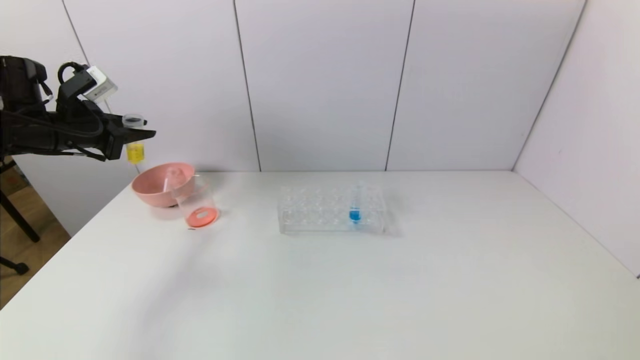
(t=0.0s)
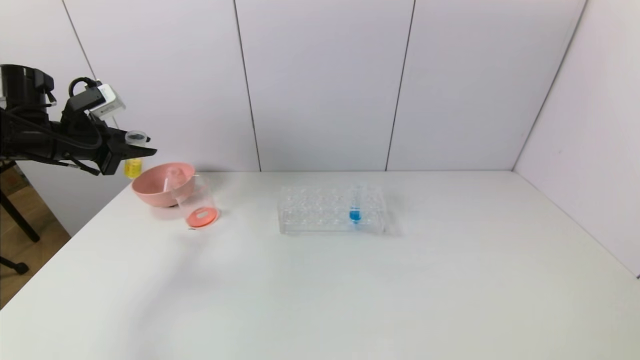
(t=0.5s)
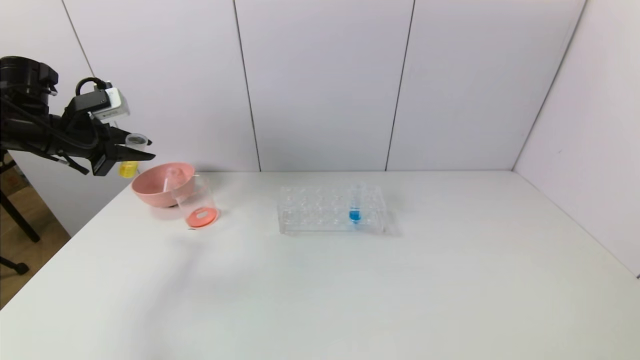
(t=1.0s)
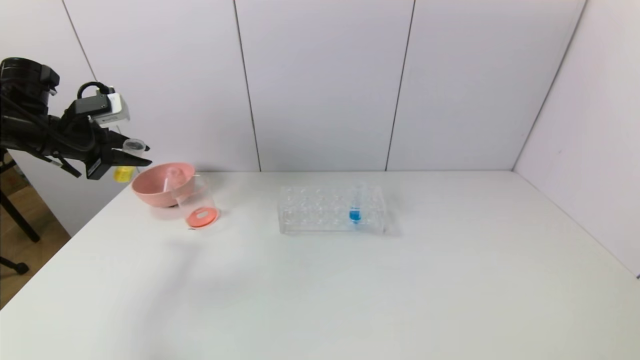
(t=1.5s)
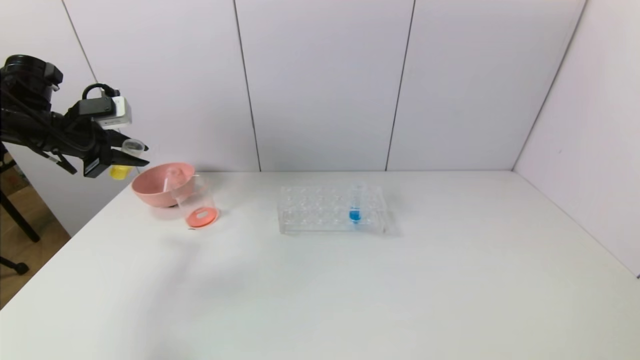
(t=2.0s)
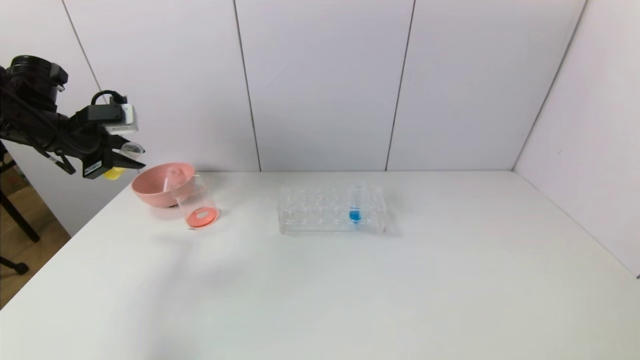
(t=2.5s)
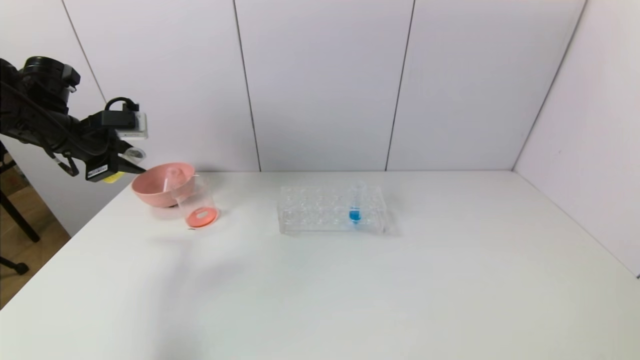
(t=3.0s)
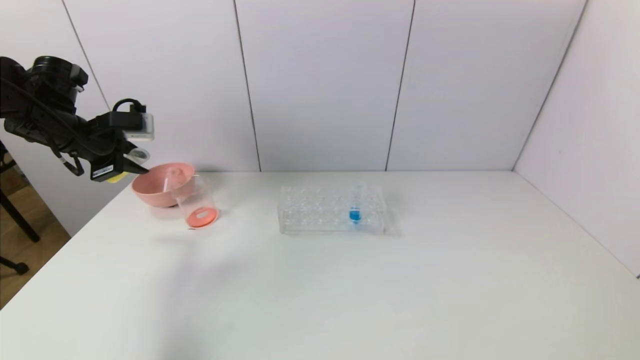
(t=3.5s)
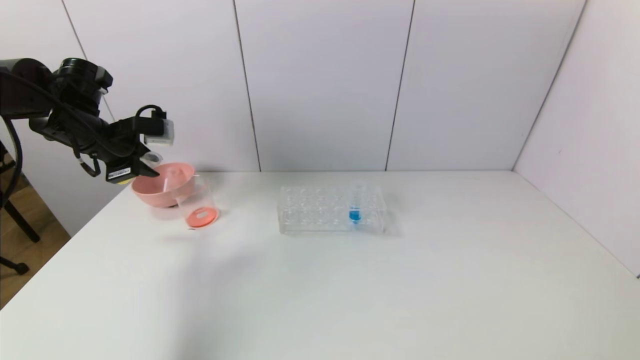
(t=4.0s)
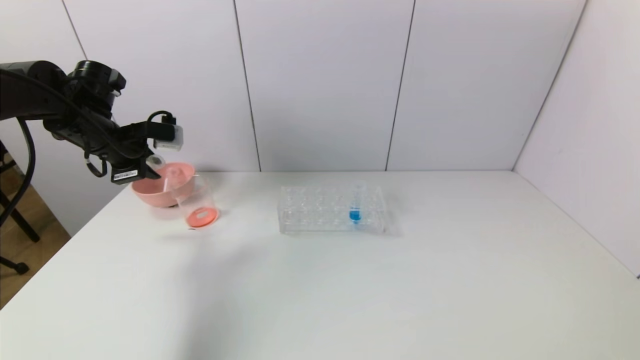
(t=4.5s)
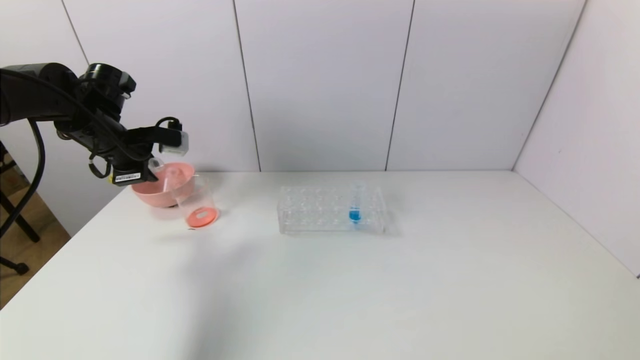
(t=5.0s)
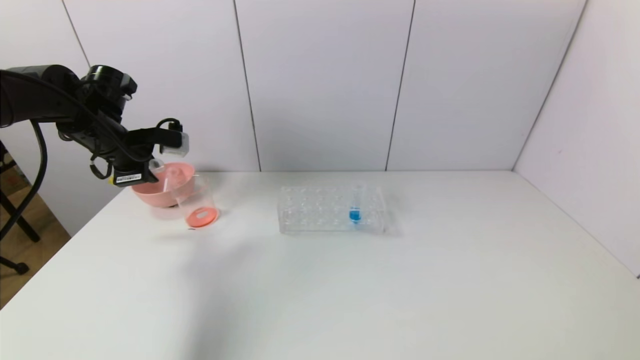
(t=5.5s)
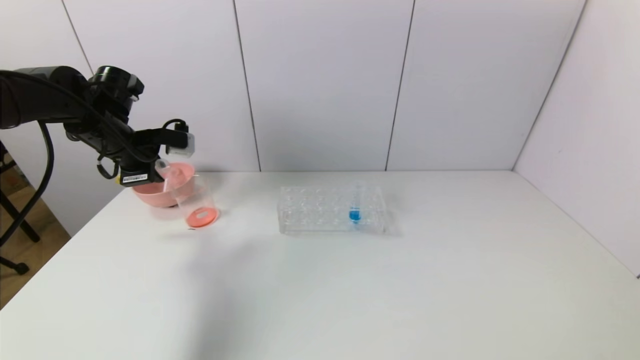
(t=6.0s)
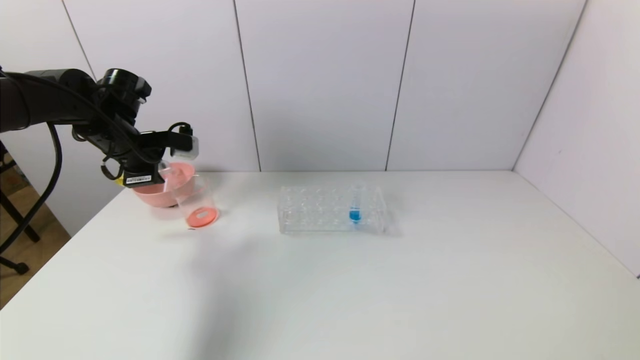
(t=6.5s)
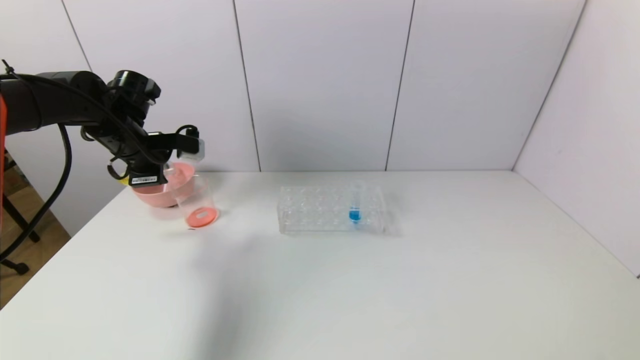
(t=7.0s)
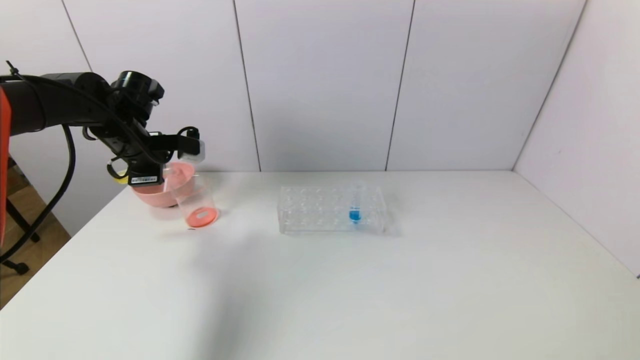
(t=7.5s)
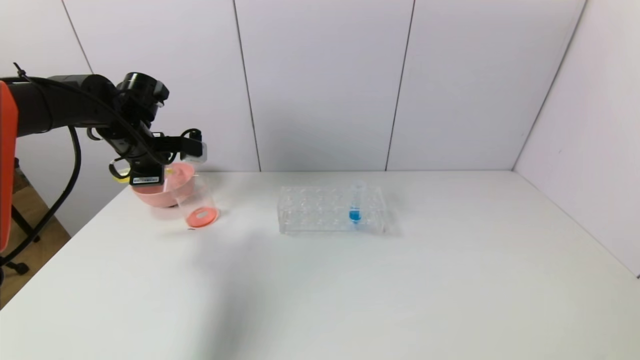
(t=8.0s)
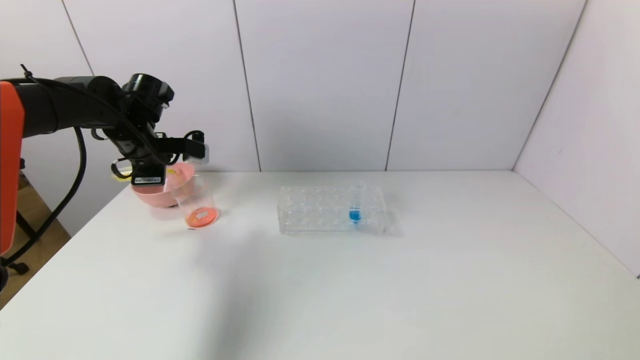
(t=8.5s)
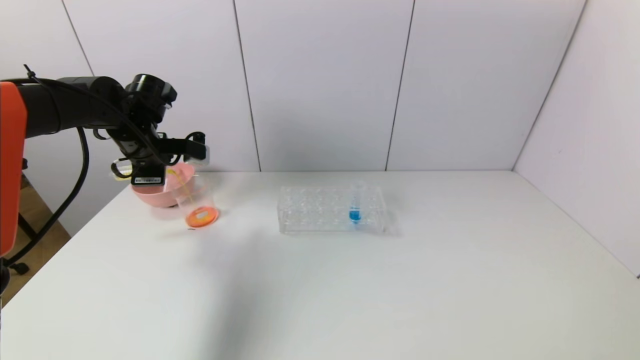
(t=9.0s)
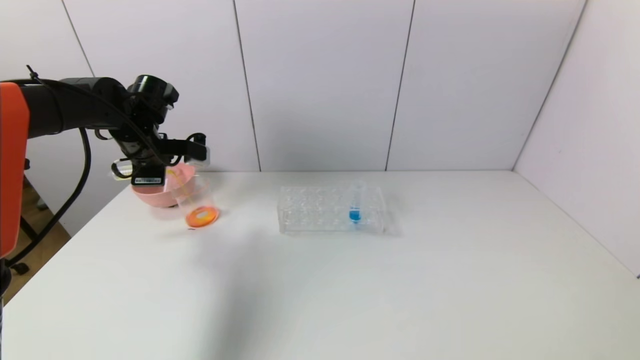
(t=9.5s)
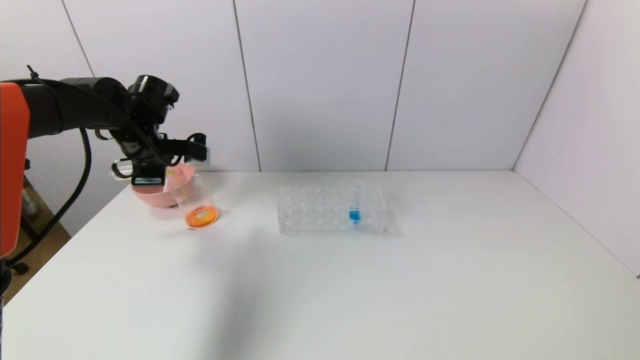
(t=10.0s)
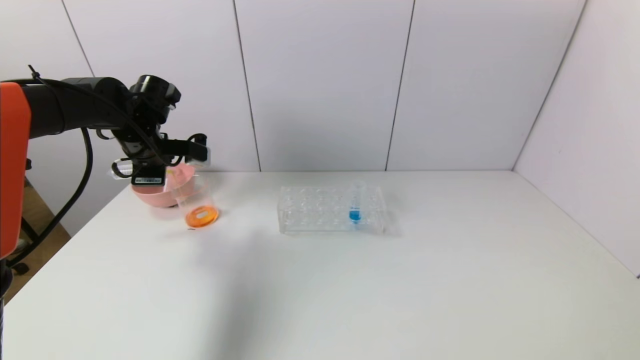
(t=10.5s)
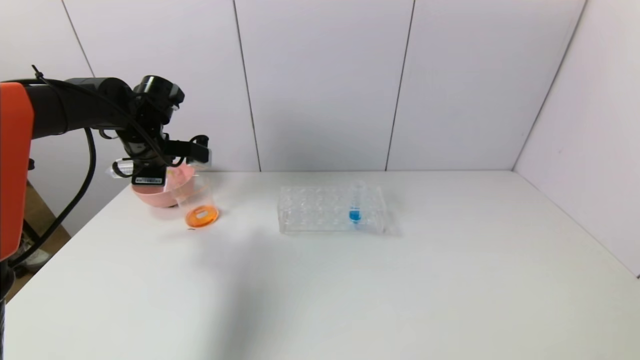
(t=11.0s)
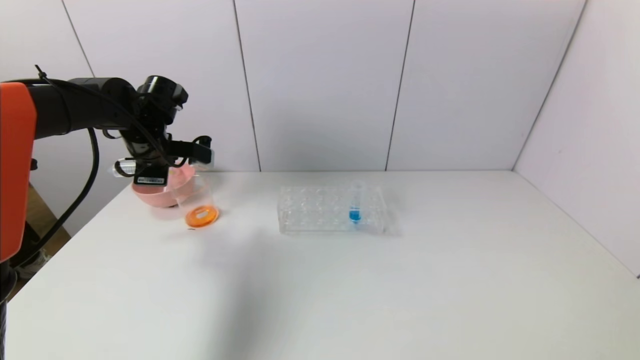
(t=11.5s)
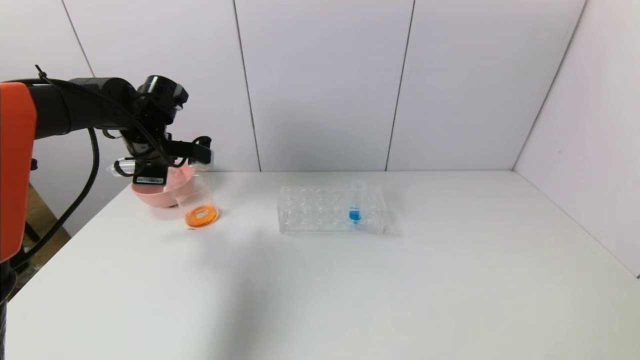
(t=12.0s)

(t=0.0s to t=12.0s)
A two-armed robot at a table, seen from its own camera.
Task of the whole recording: pick up the test tube with yellow pigment and the test tube with red pigment by grippers and pour them into the beaker.
Step, t=0.0s - t=11.5s: Pour the yellow reagent into the graduated cylinder with the left gripper.
t=2.0s - t=4.0s: The left gripper moves about 5 cm.
t=4.0s - t=6.0s: The grippers stay close to where they were, moving slightly.
t=6.0s - t=10.0s: The grippers stay close to where they were, moving slightly.
t=10.0s - t=12.0s: There are only small adjustments of the grippers.

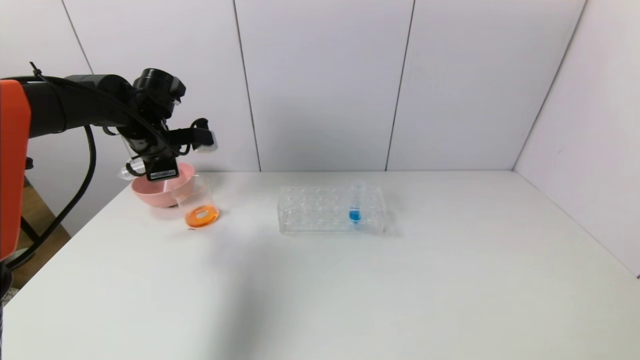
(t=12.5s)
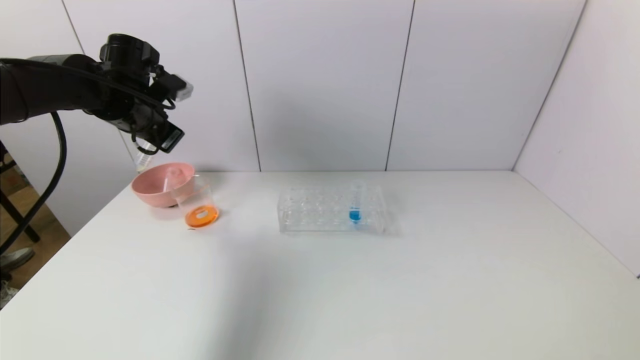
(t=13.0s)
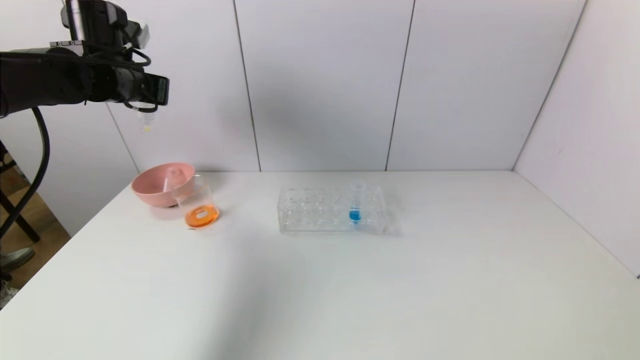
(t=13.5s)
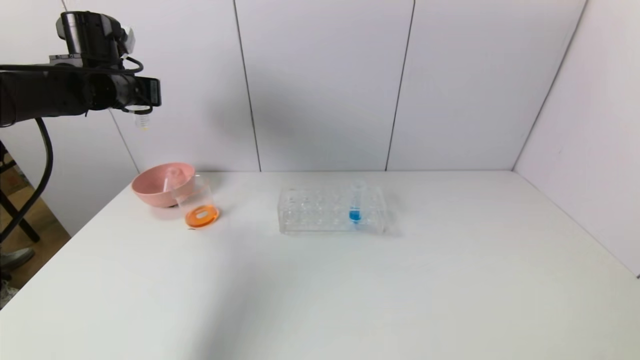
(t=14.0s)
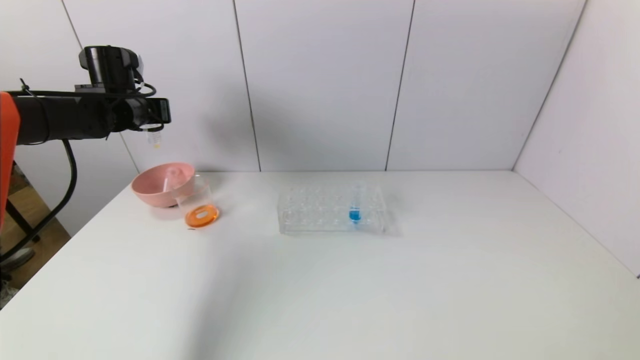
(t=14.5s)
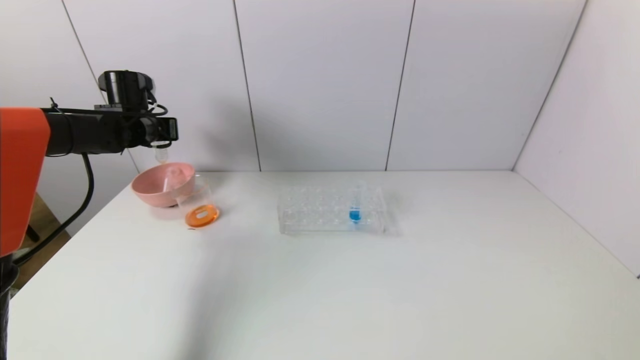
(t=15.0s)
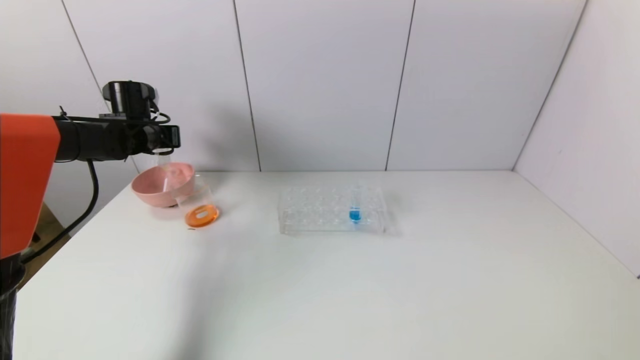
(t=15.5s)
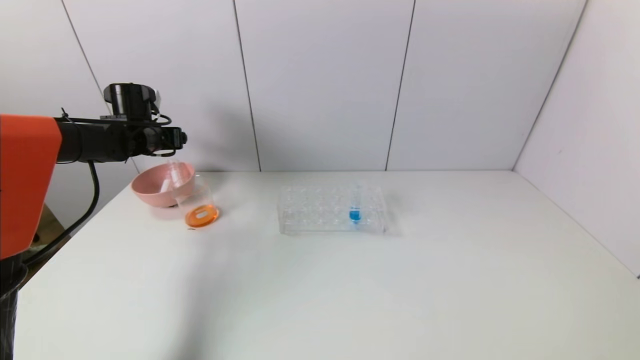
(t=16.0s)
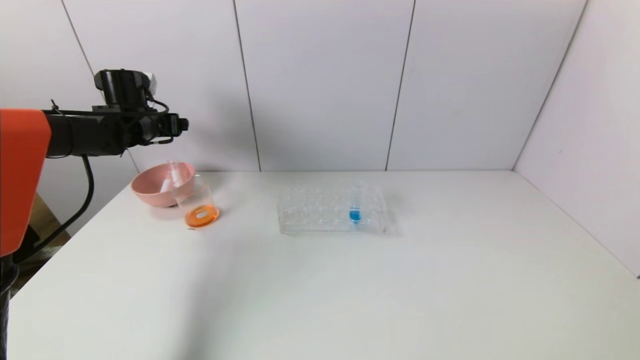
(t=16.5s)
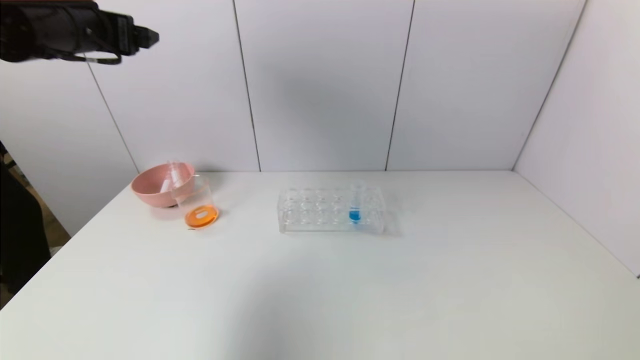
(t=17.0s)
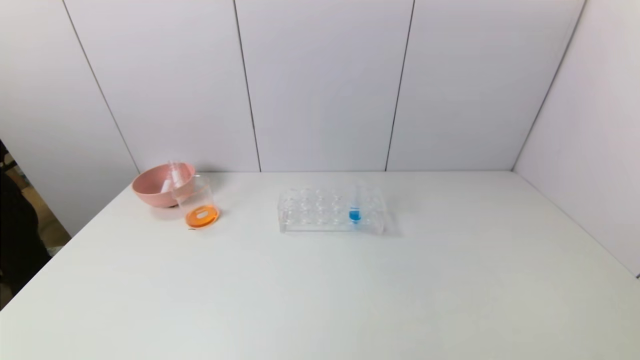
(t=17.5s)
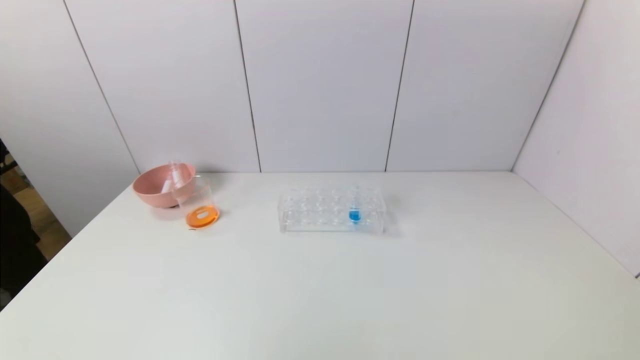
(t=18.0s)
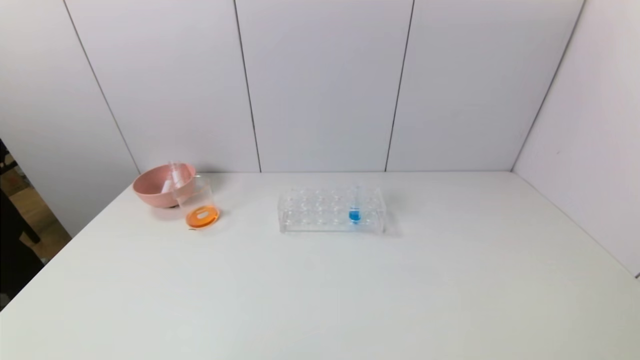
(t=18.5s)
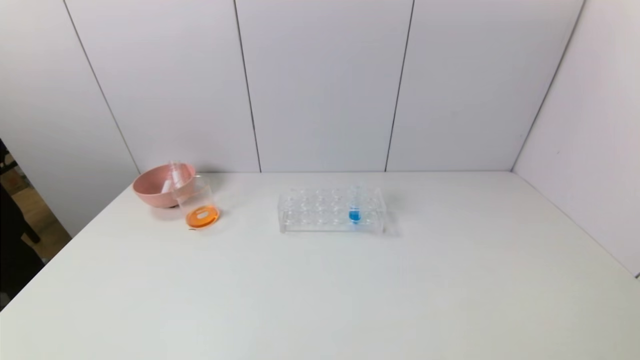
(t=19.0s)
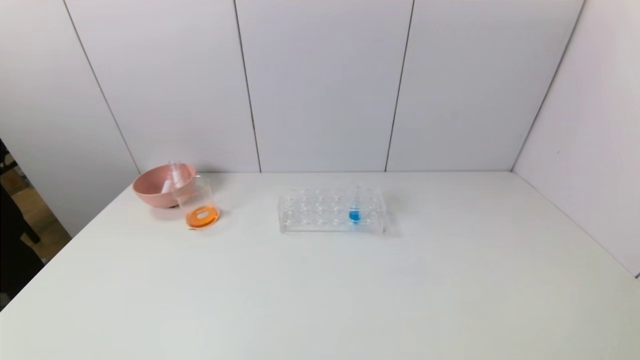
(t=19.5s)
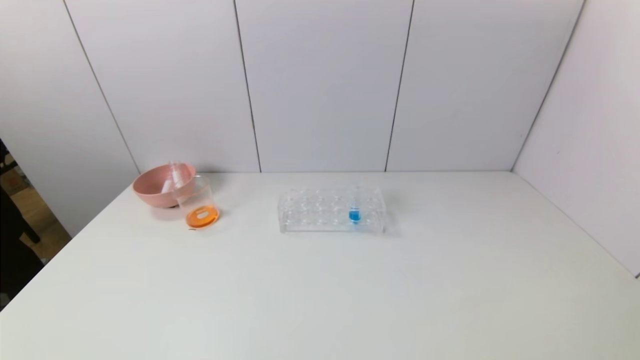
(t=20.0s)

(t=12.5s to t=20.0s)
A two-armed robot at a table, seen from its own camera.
Task of the whole recording: pick up the test tube with yellow pigment and the test tube with red pigment by grippers and pour them into the beaker.
Step, t=12.5s - t=16.0s: Place the test tube into the pink bowl with the left gripper.
t=12.5s - t=14.5s: The left gripper travels to the left by roughly 5 cm, and goes upward and returns, approximately 10 cm each way.
t=14.5s - t=16.5s: The left gripper opens.
t=16.5s - t=18.0s: The left gripper moves backward, approximately 50 cm.
